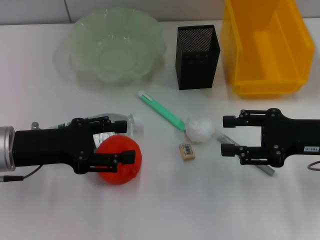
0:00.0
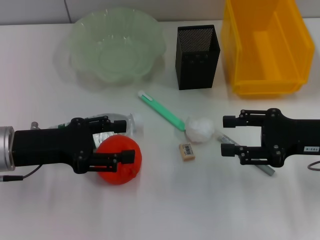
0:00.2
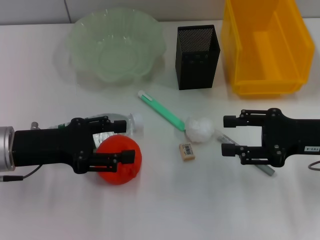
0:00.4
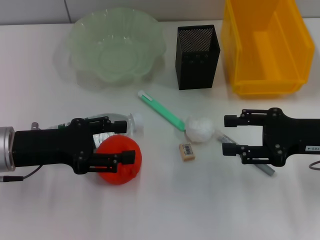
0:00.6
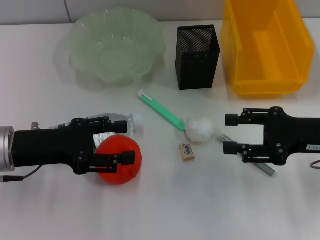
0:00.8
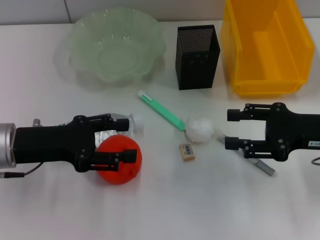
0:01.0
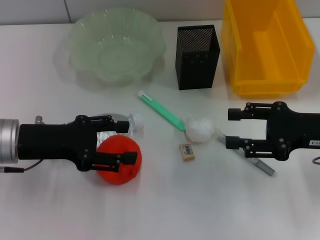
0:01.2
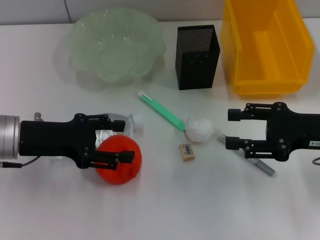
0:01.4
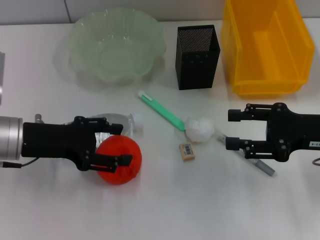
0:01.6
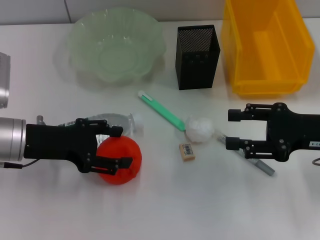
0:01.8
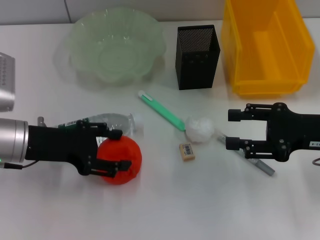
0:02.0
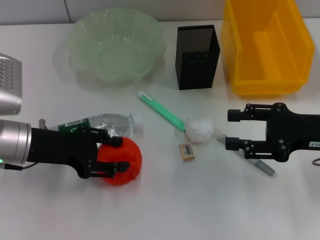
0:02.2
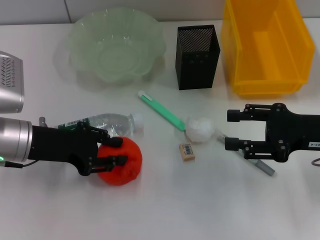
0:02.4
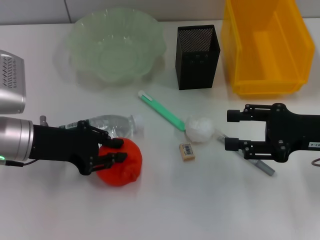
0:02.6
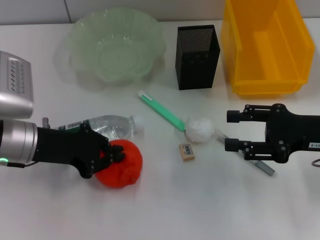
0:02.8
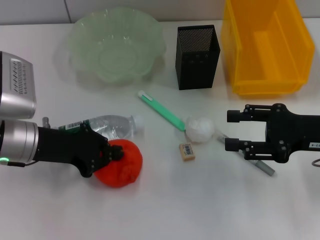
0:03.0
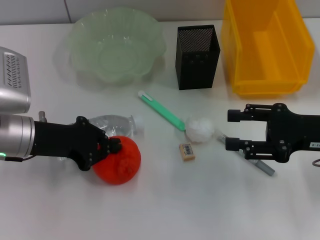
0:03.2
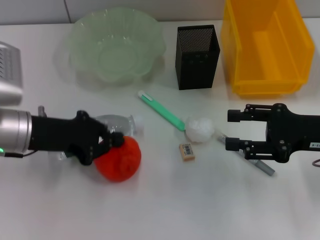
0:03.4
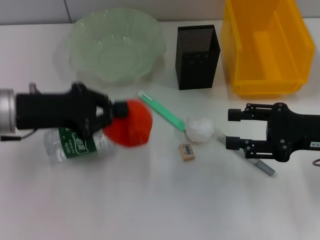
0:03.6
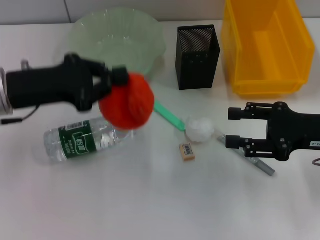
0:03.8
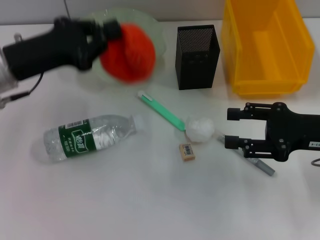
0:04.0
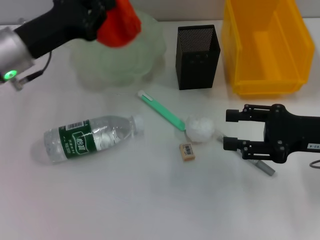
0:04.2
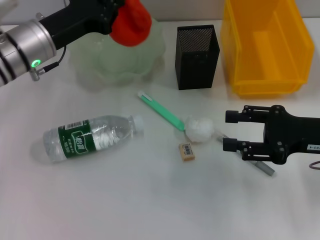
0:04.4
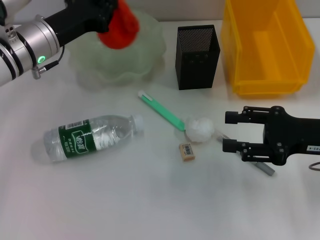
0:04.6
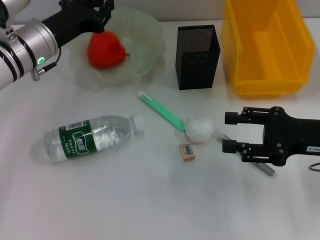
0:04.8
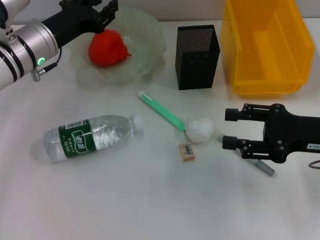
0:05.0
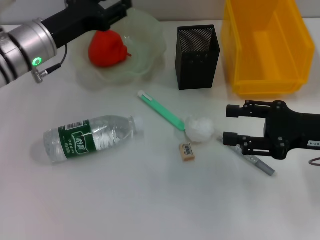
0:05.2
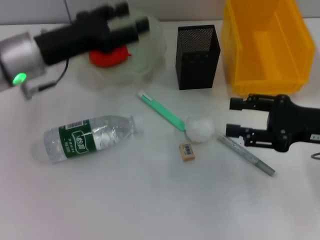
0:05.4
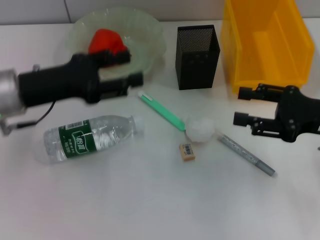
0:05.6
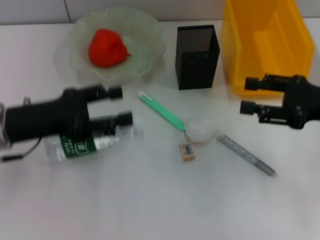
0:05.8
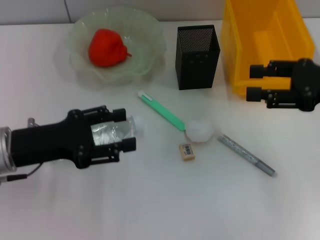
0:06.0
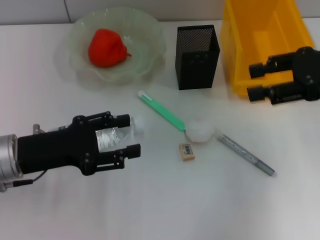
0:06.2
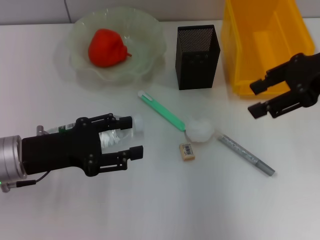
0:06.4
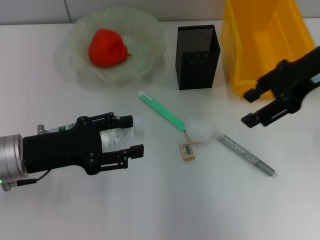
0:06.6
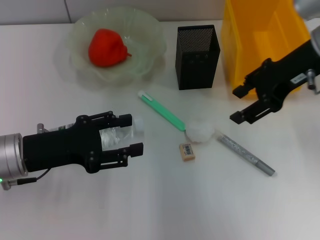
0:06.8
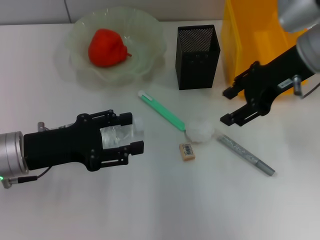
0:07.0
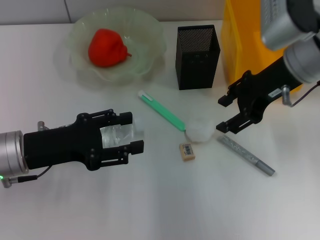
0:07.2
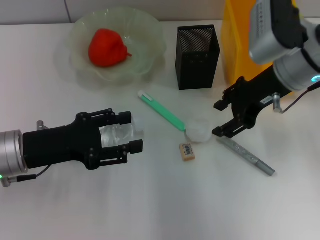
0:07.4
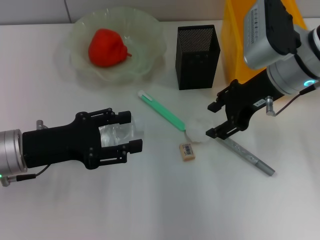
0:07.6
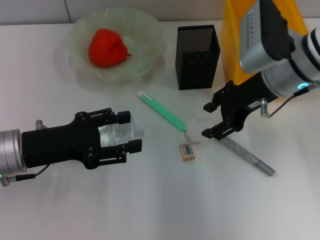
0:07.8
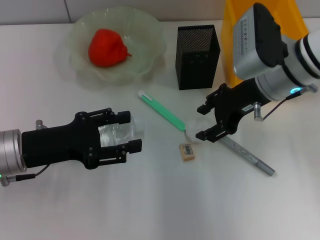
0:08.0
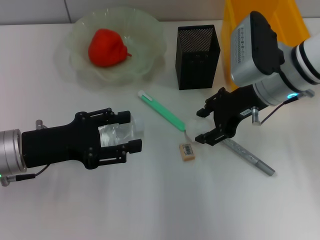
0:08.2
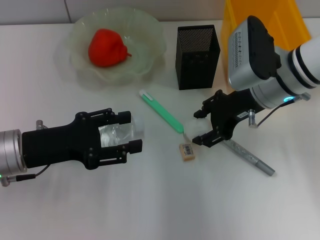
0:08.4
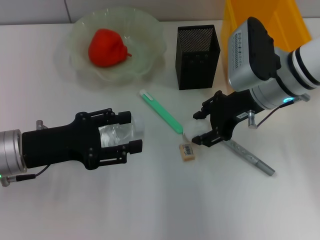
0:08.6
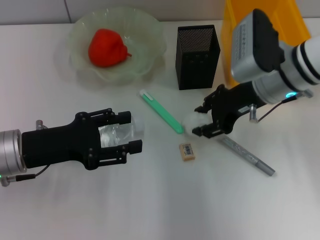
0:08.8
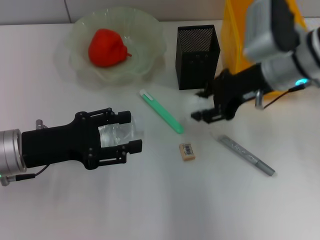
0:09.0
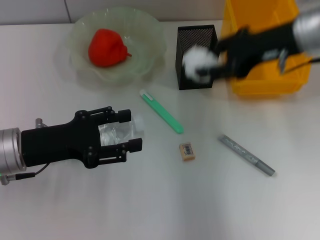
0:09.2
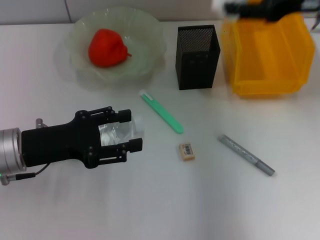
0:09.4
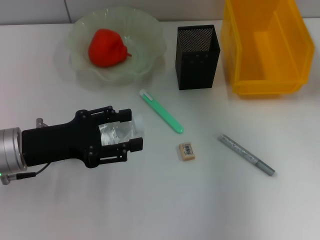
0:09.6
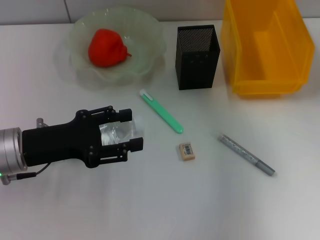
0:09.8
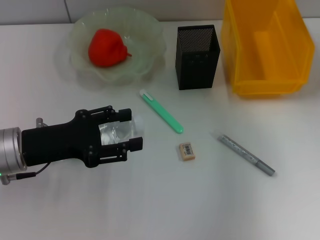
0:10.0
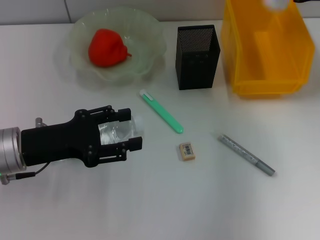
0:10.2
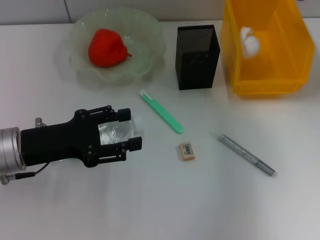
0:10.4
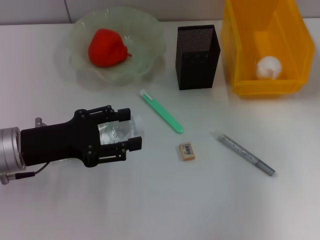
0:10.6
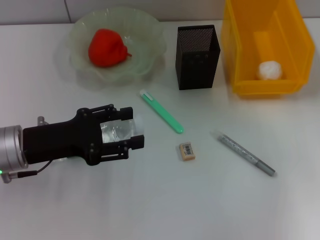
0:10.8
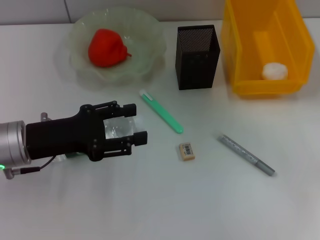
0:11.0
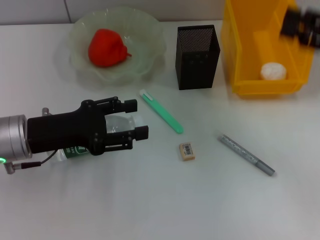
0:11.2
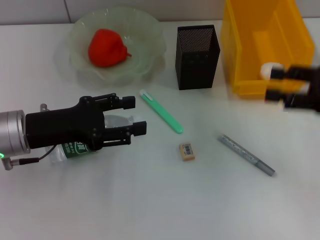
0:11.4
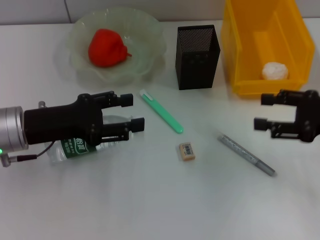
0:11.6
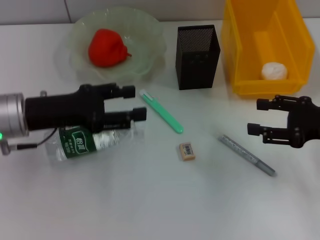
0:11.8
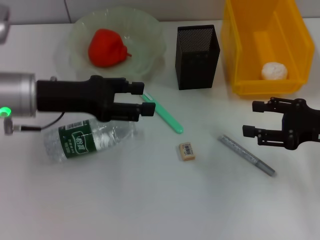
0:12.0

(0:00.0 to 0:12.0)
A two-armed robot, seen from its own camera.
Step, 0:00.0 - 0:03.2: Grab the orange with the left hand.
Step, 0:03.4 - 0:05.0: Place the orange into the fruit bowl with the left hand.
Step, 0:05.2 - 0:08.4: Grab the paper ball with the right hand.
Step, 0:08.6 - 0:10.4: Place the paper ball into the trash can with the right hand.
0:00.0 - 0:01.6: The grippers stay close to where they were, moving slightly.
0:01.6 - 0:03.0: The left gripper closes up.
0:03.0 - 0:04.4: The left gripper is displaced forward by about 10 cm.
0:04.4 - 0:06.0: The left gripper goes approximately 10 cm backward, and opens. The right gripper goes some 5 cm upward.
0:06.0 - 0:07.6: The right gripper goes roughly 15 cm to the left and forward.
0:07.6 - 0:09.0: There are only small adjustments of the grippers.
0:09.0 - 0:10.4: The right gripper is displaced to the right by roughly 15 cm.
0:10.4 - 0:12.0: The right gripper heads backward and downward, covering some 15 cm, while the left gripper is displaced forward by roughly 5 cm.

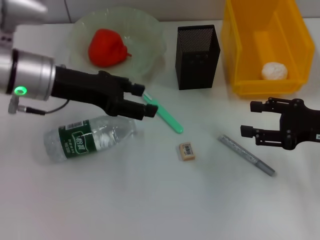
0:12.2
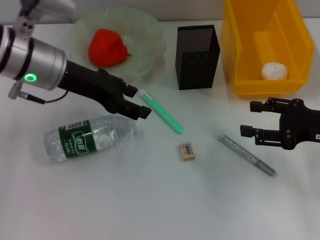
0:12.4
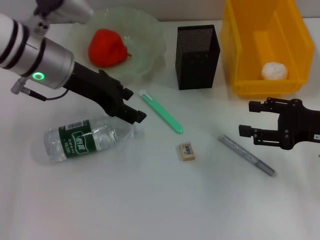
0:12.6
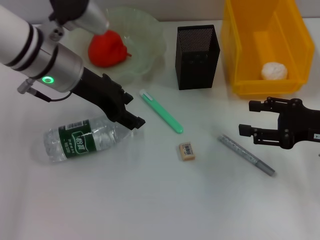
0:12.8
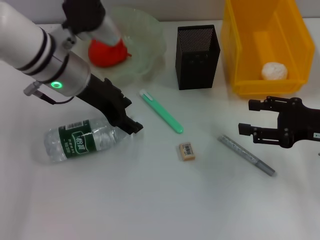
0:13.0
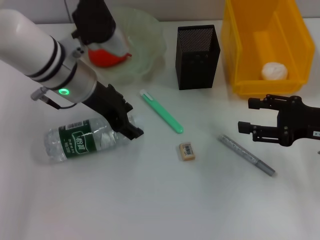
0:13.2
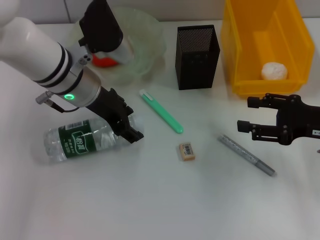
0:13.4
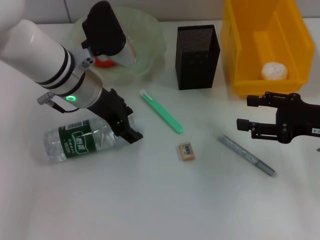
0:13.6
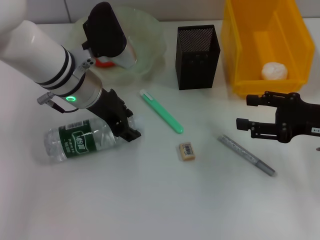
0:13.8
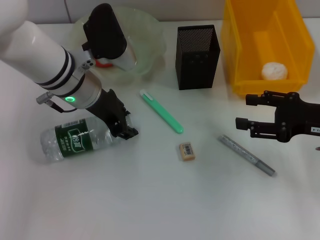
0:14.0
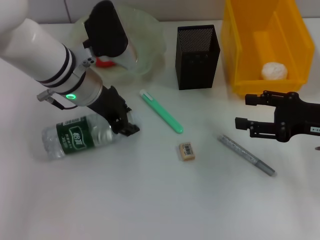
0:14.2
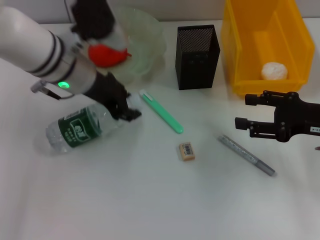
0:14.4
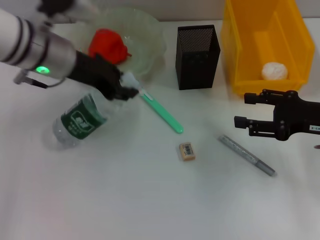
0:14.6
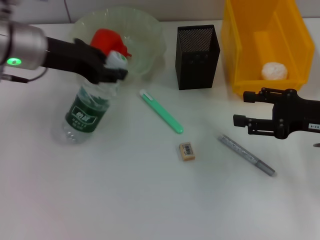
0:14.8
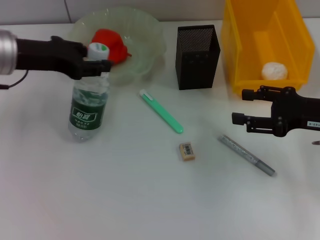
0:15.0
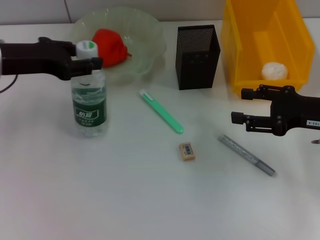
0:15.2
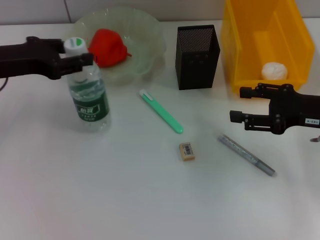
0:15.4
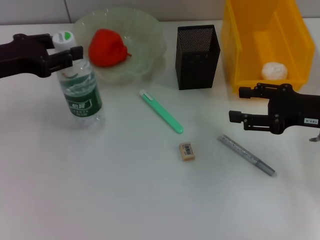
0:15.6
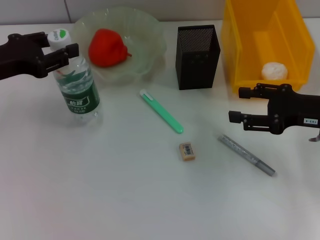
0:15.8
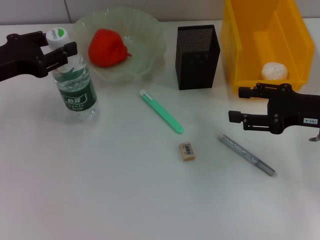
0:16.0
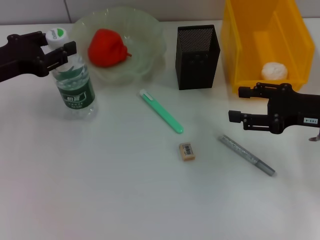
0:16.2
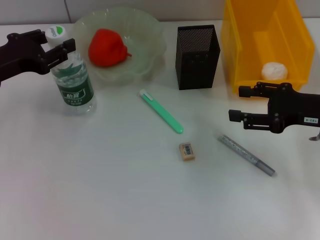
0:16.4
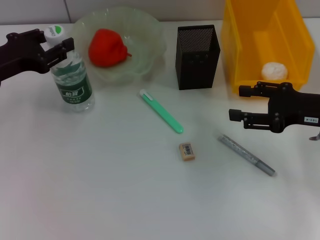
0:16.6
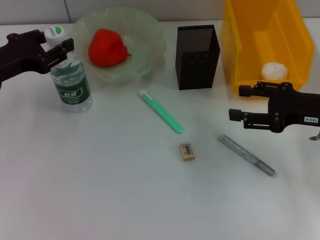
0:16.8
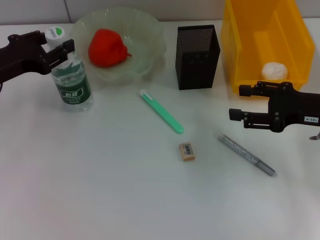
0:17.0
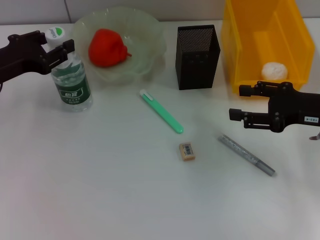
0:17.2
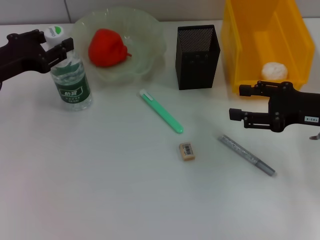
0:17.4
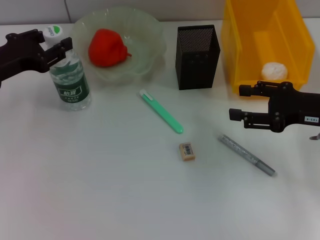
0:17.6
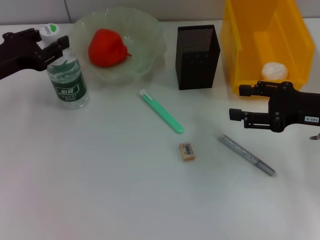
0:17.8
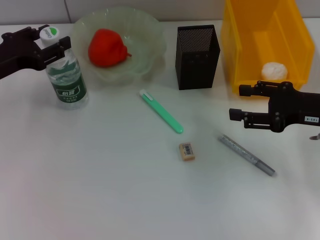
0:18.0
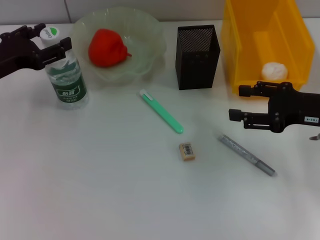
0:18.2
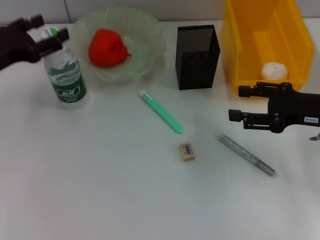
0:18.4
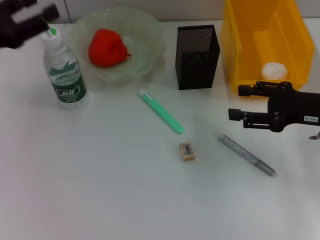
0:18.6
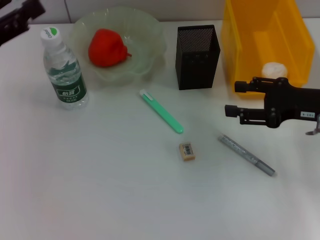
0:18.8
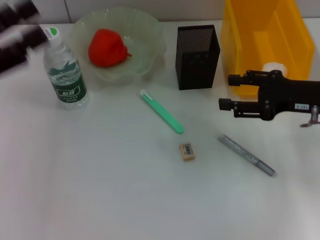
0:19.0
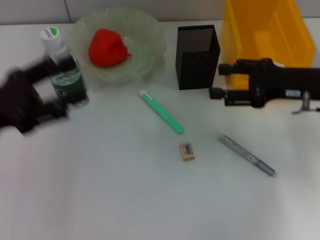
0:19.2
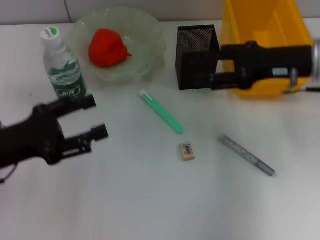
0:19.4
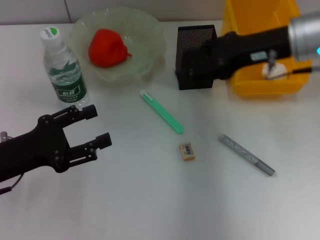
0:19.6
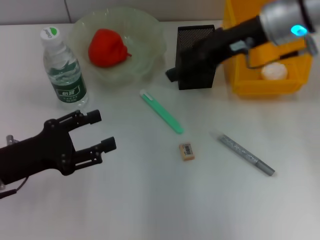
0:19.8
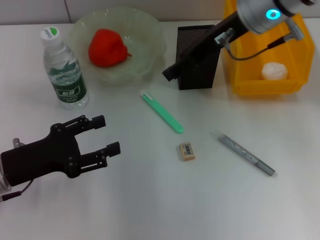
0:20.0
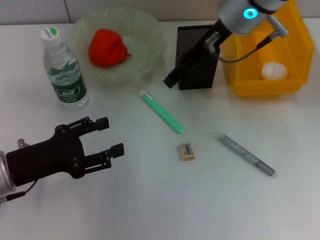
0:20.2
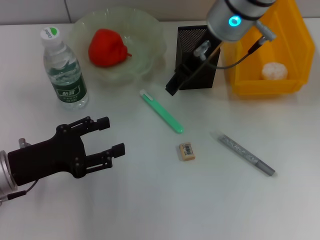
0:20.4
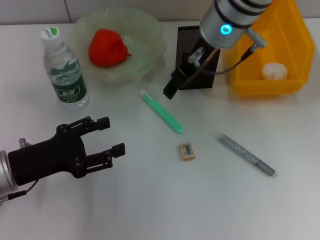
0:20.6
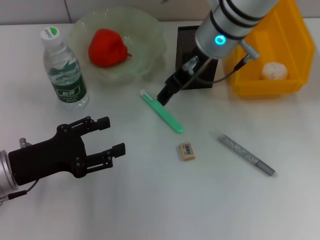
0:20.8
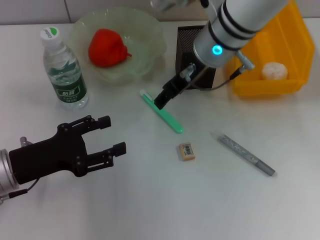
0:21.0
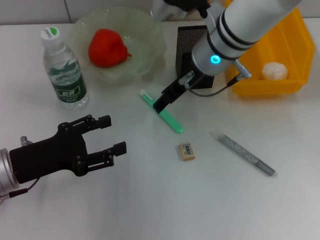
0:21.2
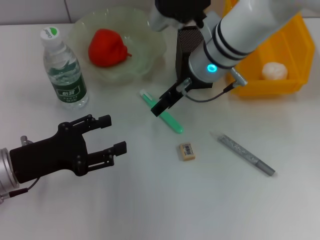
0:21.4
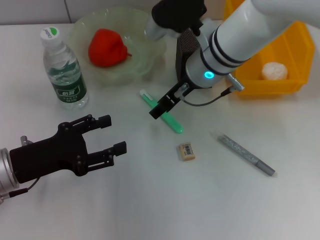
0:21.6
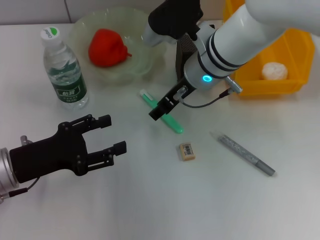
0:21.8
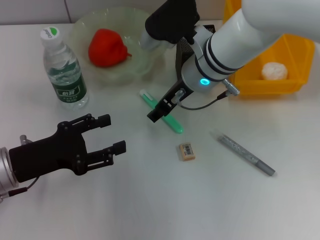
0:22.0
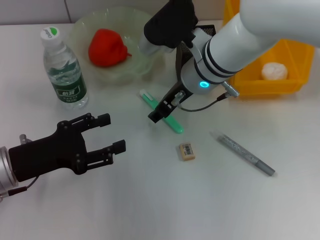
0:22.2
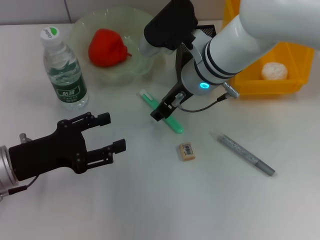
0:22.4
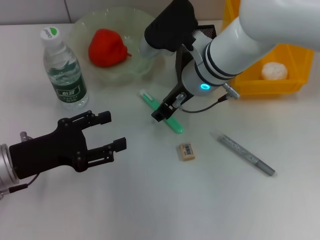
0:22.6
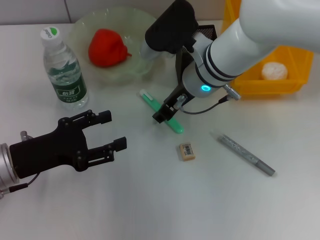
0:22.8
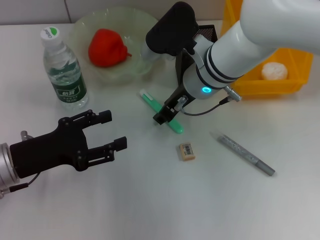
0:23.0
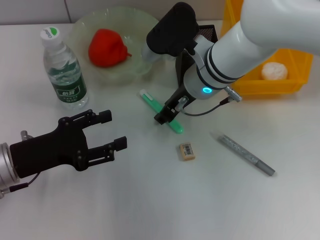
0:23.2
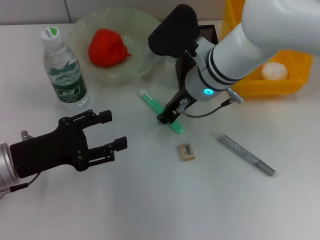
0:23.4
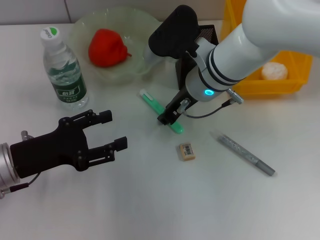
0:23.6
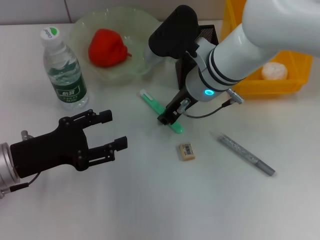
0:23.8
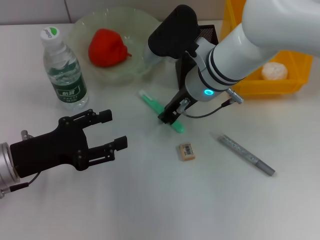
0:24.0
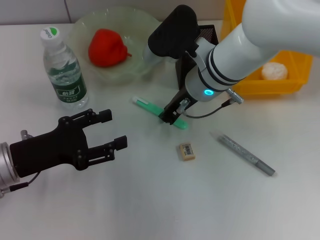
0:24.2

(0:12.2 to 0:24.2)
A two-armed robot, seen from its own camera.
Step, 0:14.0 - 0:18.2: Place the water bottle on the table with the left hand.
0:12.2 - 0:13.8: The left gripper shifts approximately 5 cm to the right.
0:13.8 - 0:15.2: The left gripper goes roughly 10 cm to the left, and closes.
0:15.2 - 0:16.6: The left gripper moves about 5 cm.
0:16.6 - 0:18.2: Neither gripper changes place.
0:18.2 - 0:19.8: The left gripper moves backward and downward, roughly 10 cm, while the right gripper moves to the left, upward and forward, about 20 cm.
0:19.8 - 0:21.2: The right gripper goes roughly 10 cm to the left and downward.
0:21.2 - 0:22.6: The grippers make only small movements.
0:22.6 - 0:24.2: The right gripper closes its fingers.
